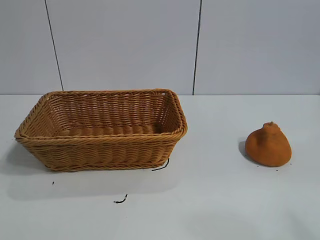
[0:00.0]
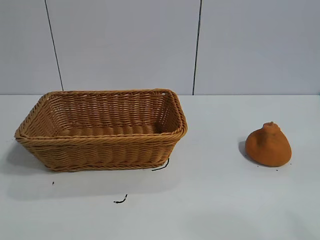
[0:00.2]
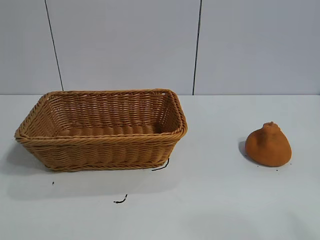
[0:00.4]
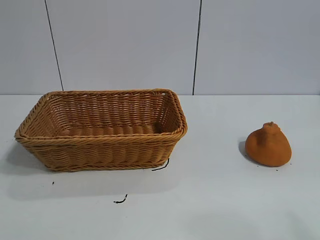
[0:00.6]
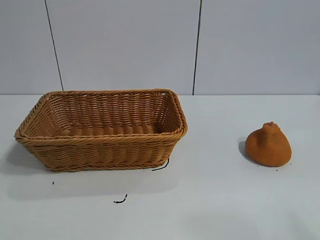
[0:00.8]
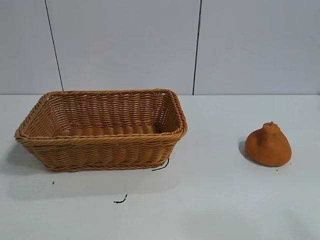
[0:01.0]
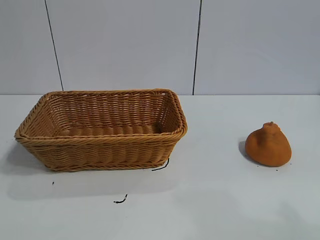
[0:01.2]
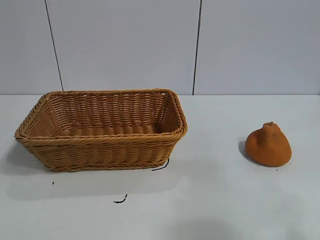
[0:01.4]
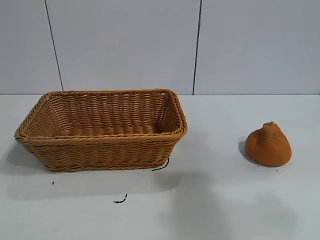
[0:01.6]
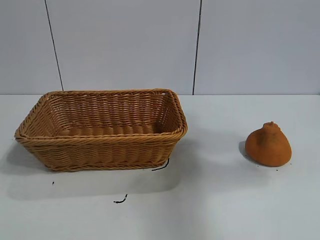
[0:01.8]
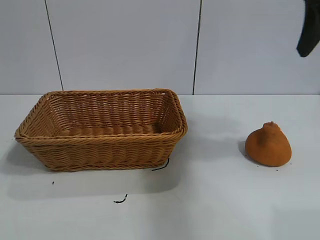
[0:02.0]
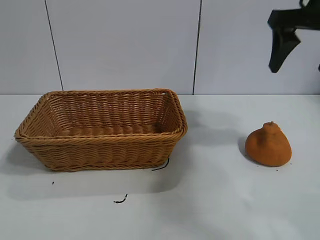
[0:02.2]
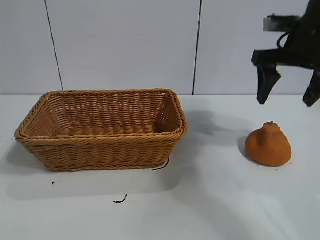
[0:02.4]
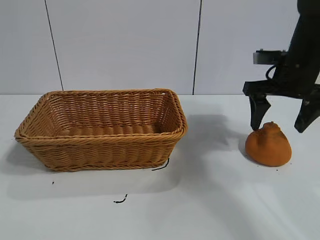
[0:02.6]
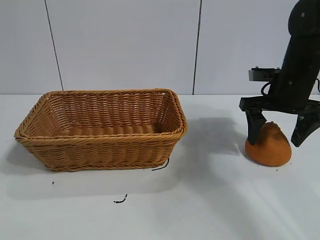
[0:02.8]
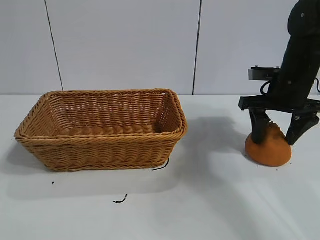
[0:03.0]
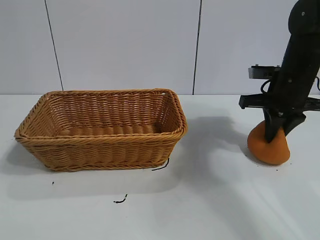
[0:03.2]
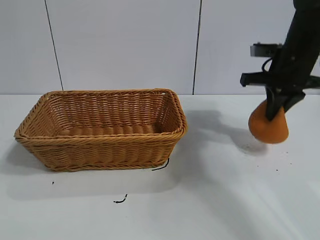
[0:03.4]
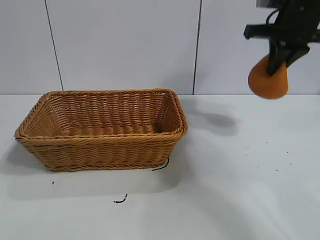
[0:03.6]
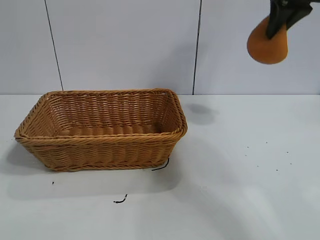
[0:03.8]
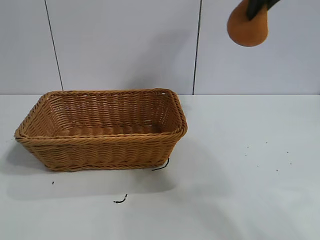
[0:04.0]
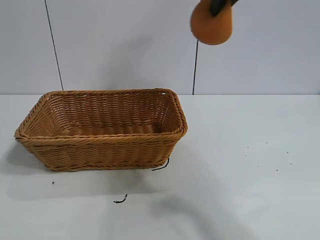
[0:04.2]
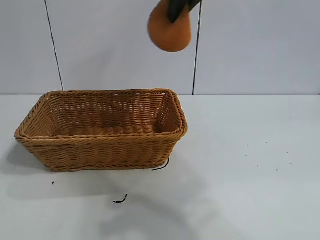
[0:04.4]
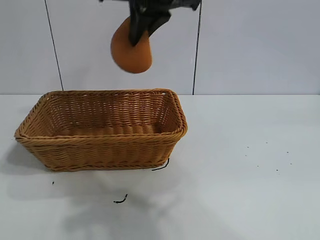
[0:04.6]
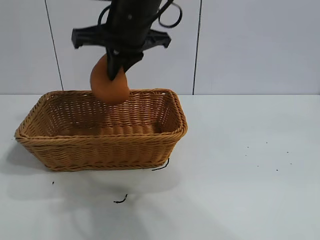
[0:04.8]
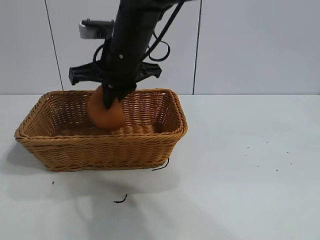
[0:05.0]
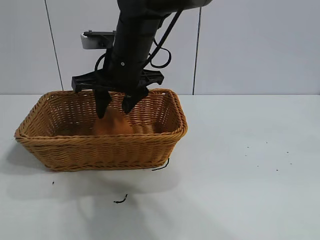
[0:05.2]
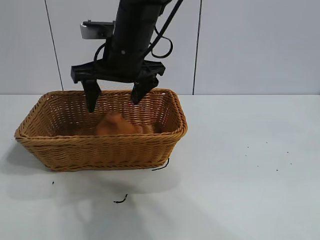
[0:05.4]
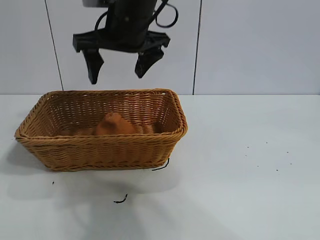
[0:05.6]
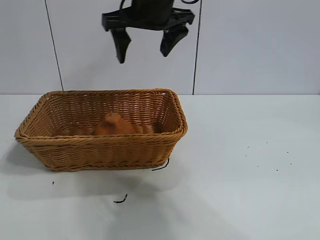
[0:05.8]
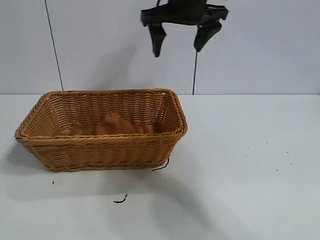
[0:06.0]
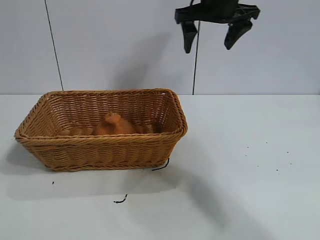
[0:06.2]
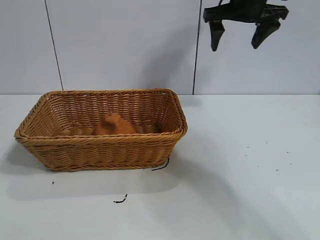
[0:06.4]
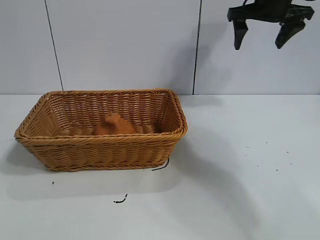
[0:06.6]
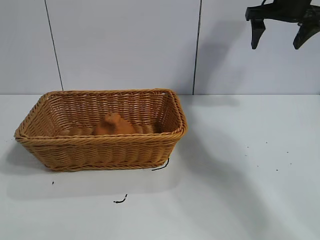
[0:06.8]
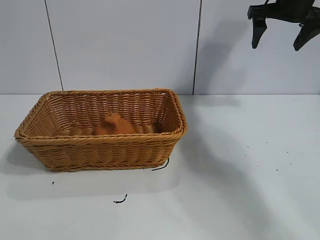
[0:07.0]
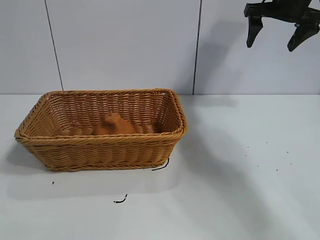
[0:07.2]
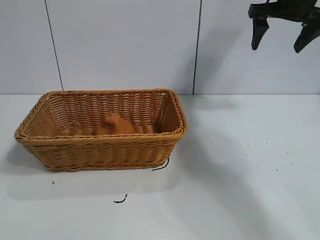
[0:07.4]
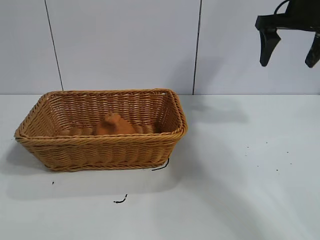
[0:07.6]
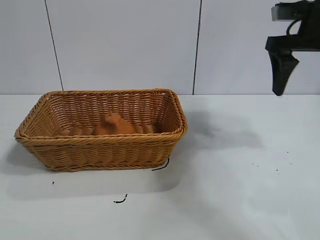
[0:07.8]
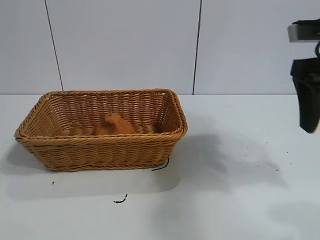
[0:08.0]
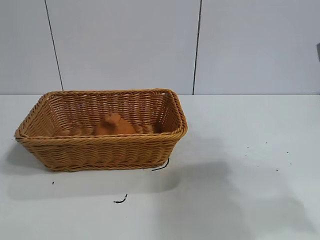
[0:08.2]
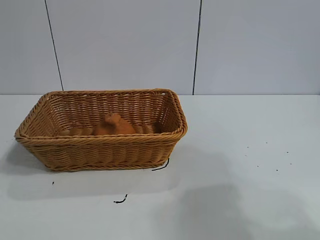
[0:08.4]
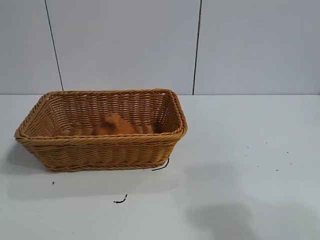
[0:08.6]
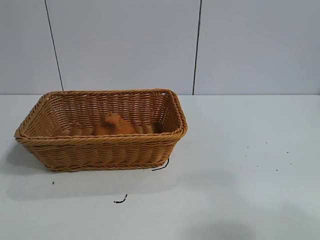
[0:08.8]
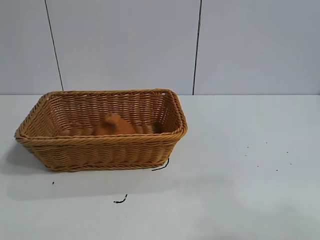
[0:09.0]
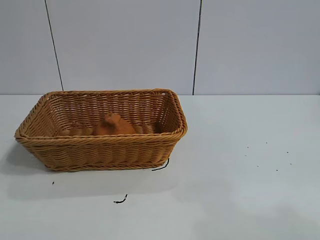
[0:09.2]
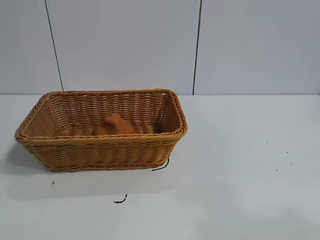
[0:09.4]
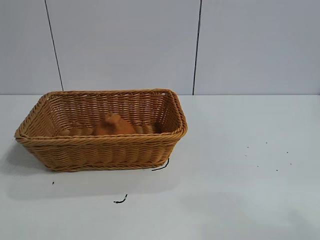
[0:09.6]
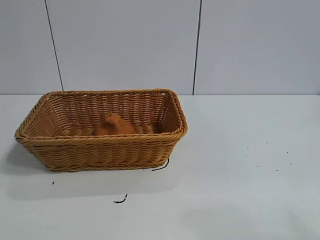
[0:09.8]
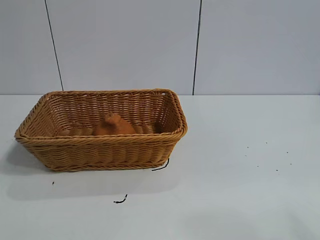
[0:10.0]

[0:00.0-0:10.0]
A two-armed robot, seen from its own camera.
Task of the whole recording: pick up the orange and put it into the basket.
Step, 0:01.0 to 0:03.2: Grasp the orange with right gripper.
Step, 0:03.4 to 0:05.2: Place the orange in the basket with right gripper.
